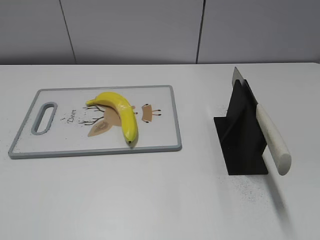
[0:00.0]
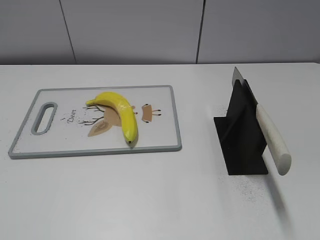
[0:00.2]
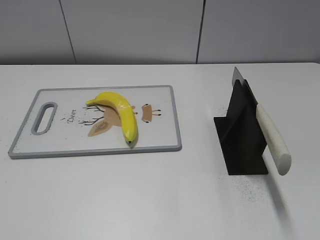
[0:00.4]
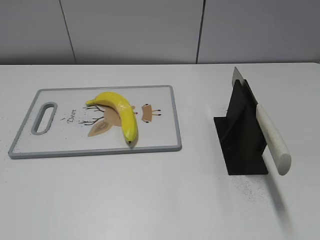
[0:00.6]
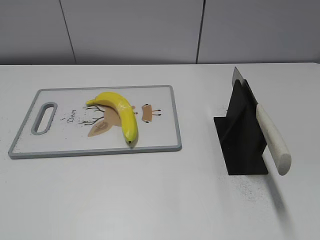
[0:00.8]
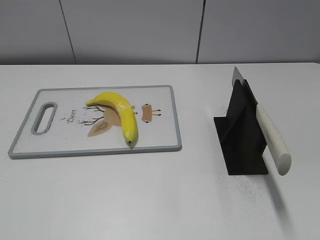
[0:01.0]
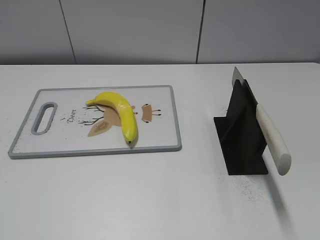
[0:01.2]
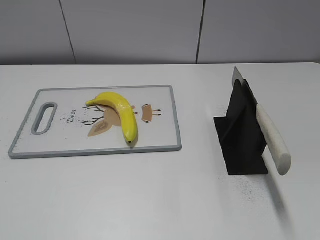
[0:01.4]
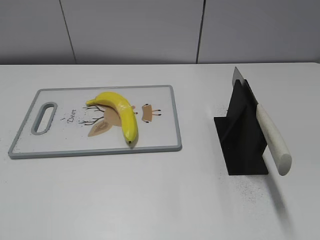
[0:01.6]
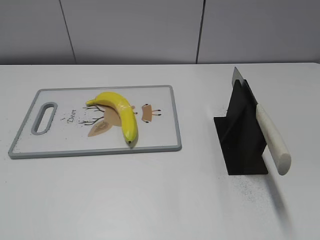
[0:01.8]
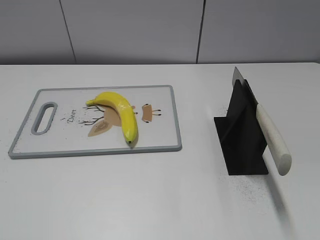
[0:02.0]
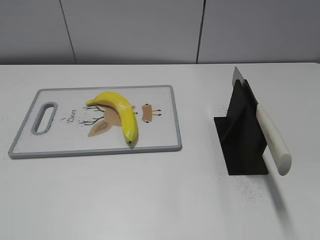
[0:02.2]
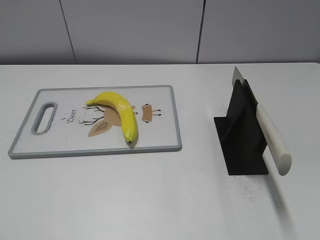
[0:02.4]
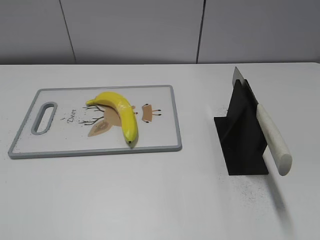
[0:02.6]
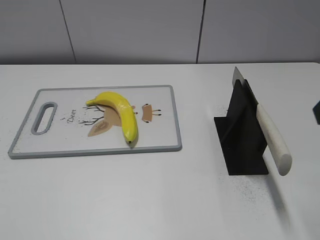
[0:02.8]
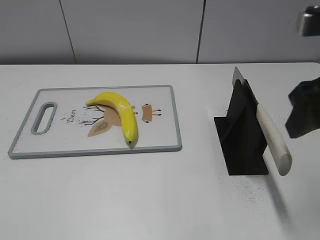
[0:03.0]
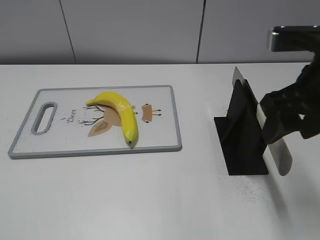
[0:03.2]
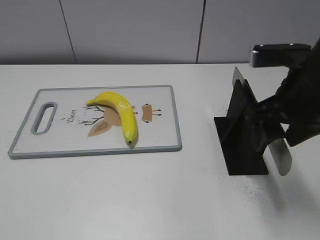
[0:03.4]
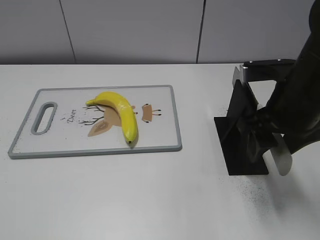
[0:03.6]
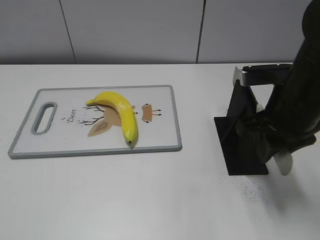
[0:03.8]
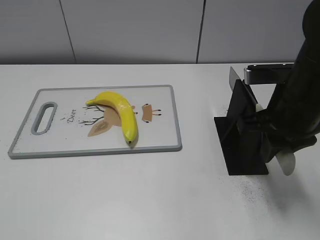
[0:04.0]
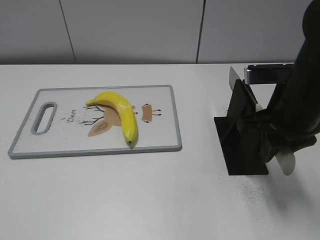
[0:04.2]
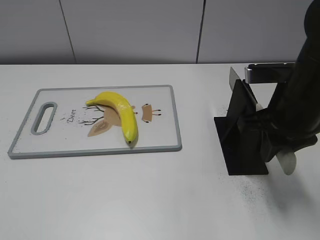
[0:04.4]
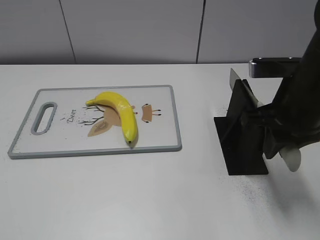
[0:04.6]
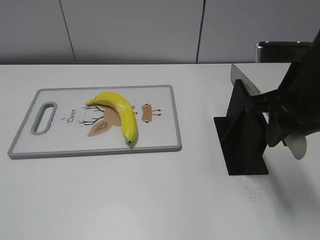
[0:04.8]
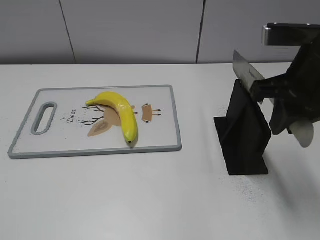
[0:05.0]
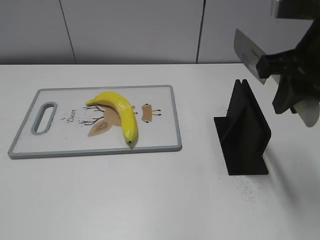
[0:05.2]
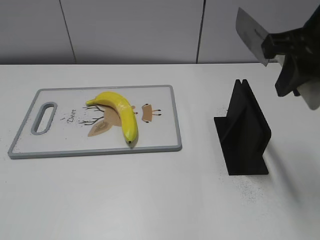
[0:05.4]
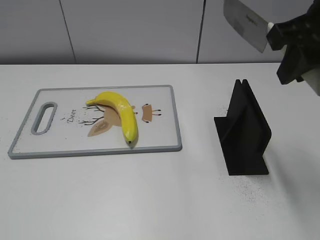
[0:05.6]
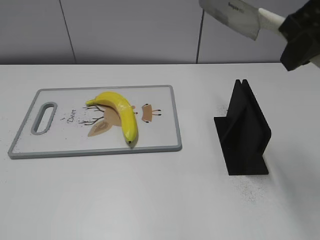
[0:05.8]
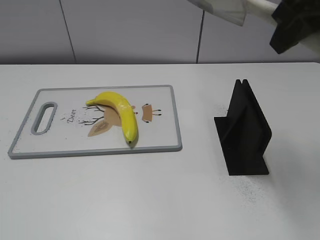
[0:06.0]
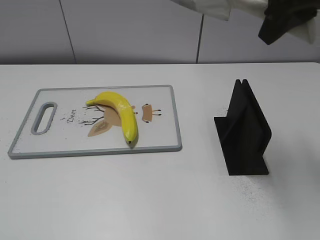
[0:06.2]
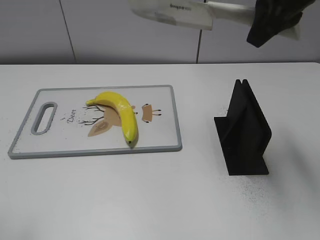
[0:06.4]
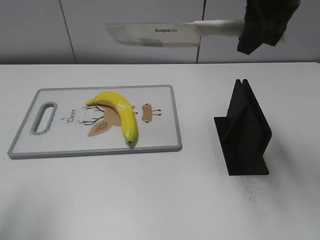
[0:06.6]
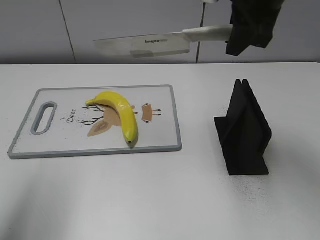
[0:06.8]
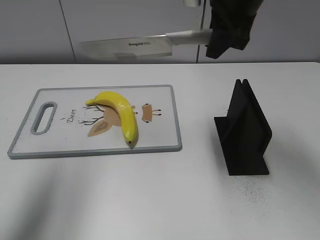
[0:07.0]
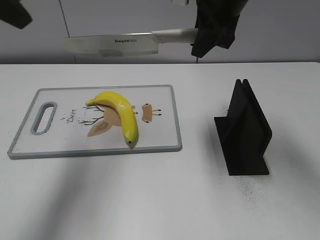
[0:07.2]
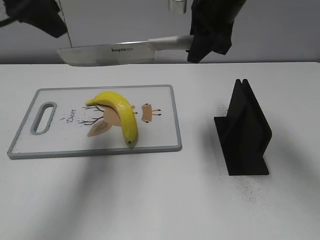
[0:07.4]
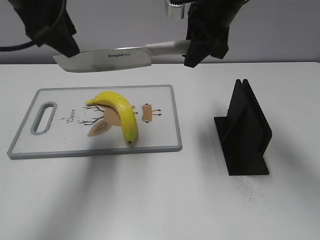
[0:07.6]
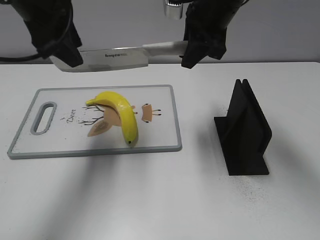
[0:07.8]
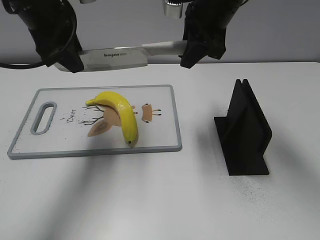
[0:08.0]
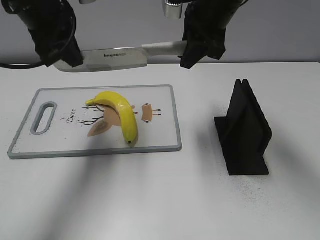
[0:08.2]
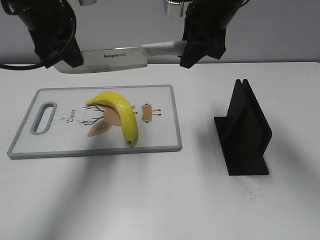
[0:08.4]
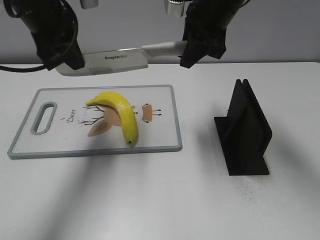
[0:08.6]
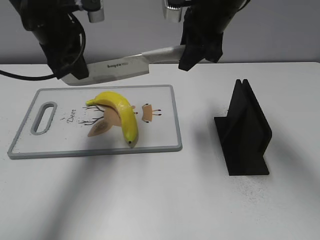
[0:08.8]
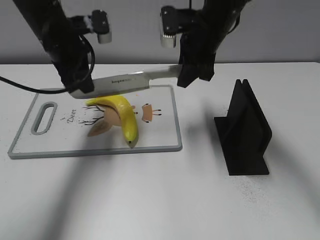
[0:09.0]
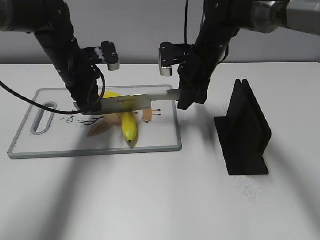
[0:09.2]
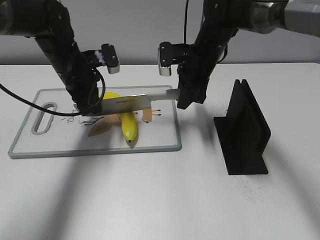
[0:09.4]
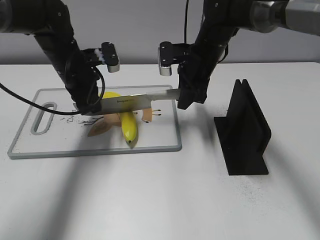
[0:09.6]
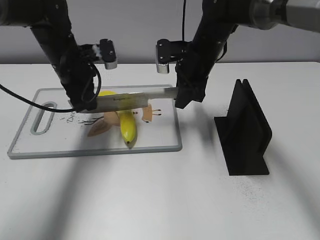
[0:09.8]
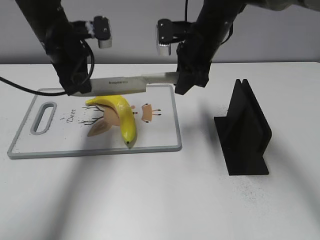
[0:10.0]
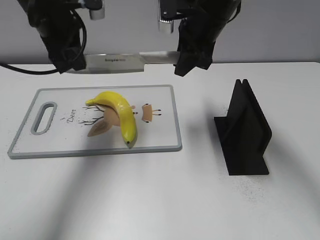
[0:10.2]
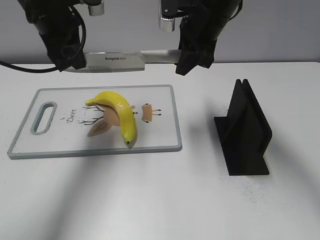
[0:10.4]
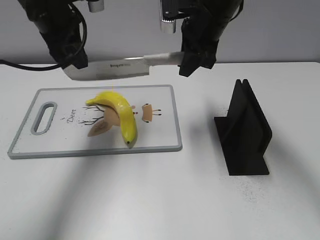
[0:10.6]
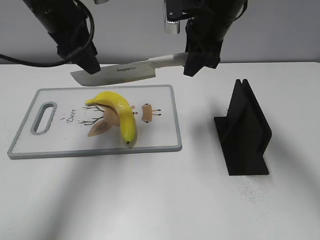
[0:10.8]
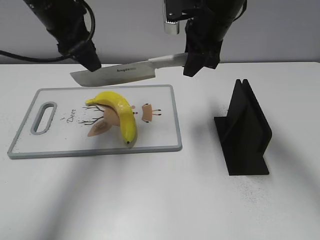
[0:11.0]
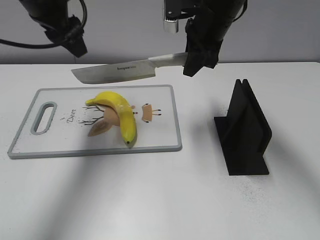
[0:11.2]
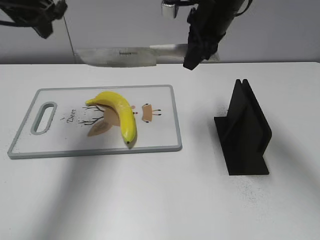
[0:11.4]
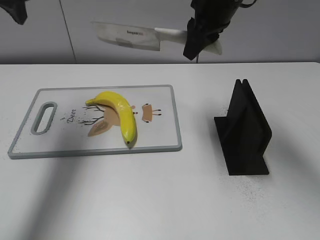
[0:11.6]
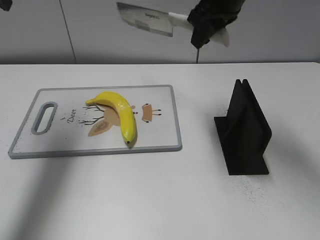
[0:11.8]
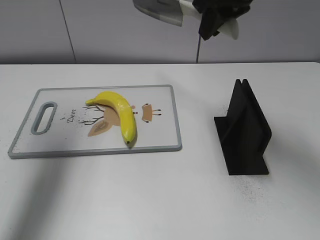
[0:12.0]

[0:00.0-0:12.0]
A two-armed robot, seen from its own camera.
Task of the whole recording: cut plastic banana.
Step, 0:00.0 to 0:05.2: Grab the knife handle with your right hand.
Step, 0:05.6 to 0:10.6: Lift the knife with your right hand.
0:01.6 to 0:03.0: The right gripper goes roughly 25 cm forward and to the left.
0:03.0 to 0:04.4: The right gripper shifts approximately 10 cm downward and forward, and closes up.
0:04.4 to 0:06.0: The right gripper moves upward, approximately 15 cm.
0:06.0 to 0:07.6: The left gripper shifts approximately 30 cm forward; the right gripper goes about 15 cm forward, downward and to the left.
0:07.6 to 0:09.0: The left gripper shifts some 10 cm downward and forward, and closes up; the right gripper moves downward, about 5 cm.
0:09.0 to 0:10.4: The left gripper travels downward and back again, approximately 10 cm each way. The right gripper travels downward and back again, roughly 10 cm each way.
0:10.4 to 0:12.0: The right gripper heads upward, covering approximately 10 cm; the left gripper moves upward and to the left, roughly 15 cm, and opens up.

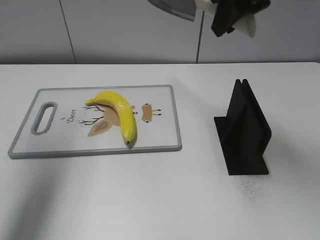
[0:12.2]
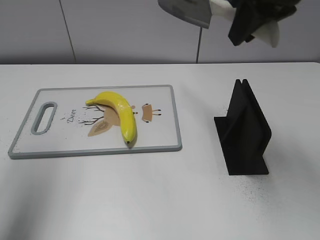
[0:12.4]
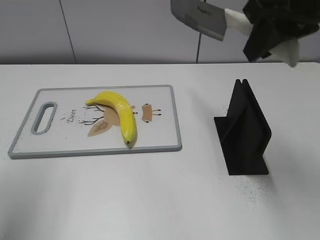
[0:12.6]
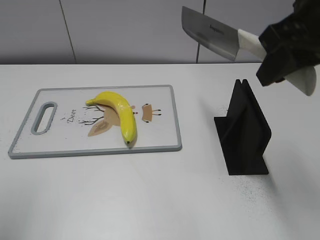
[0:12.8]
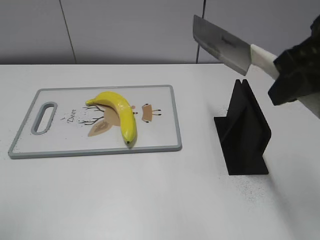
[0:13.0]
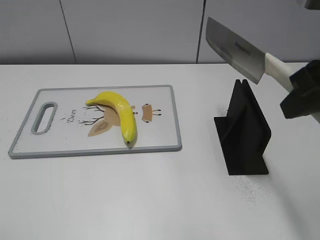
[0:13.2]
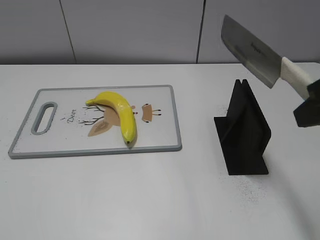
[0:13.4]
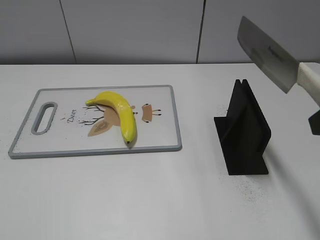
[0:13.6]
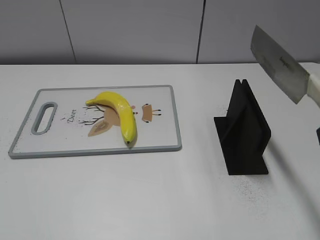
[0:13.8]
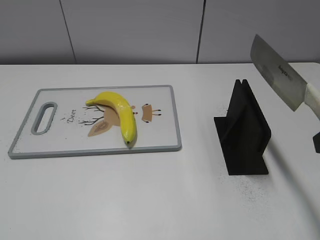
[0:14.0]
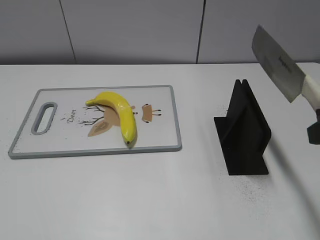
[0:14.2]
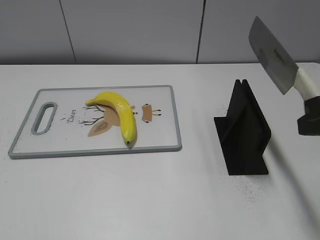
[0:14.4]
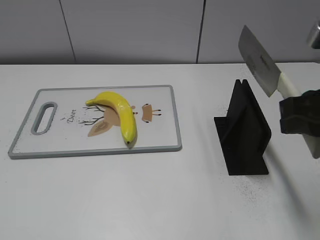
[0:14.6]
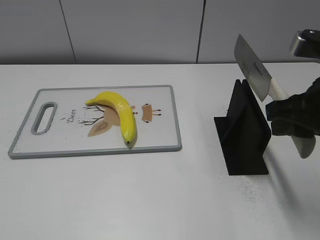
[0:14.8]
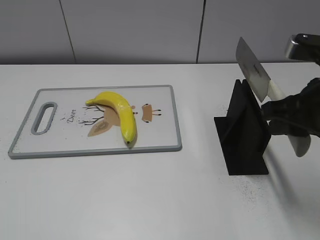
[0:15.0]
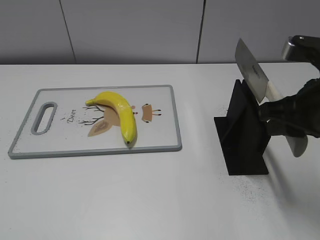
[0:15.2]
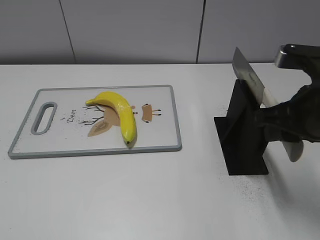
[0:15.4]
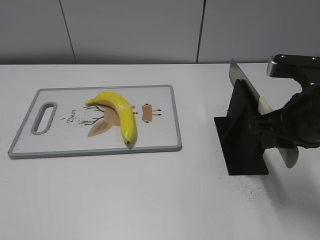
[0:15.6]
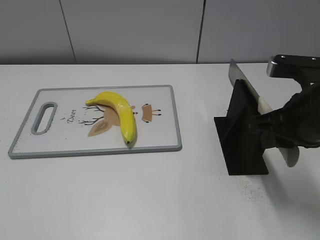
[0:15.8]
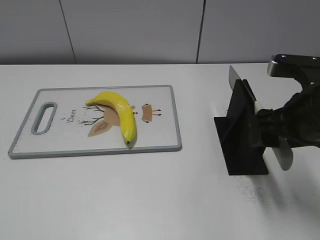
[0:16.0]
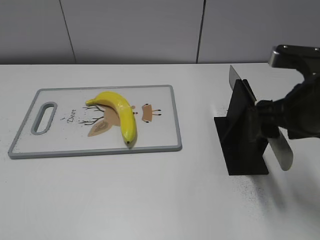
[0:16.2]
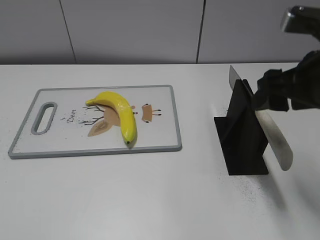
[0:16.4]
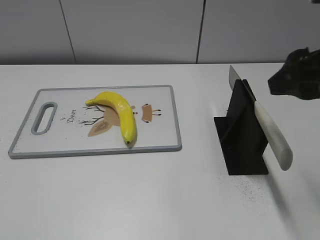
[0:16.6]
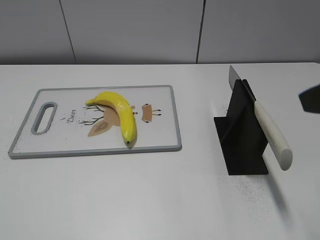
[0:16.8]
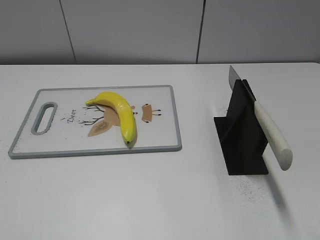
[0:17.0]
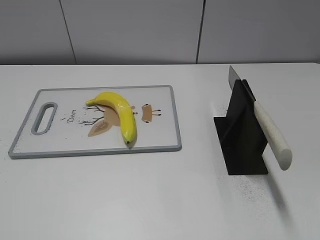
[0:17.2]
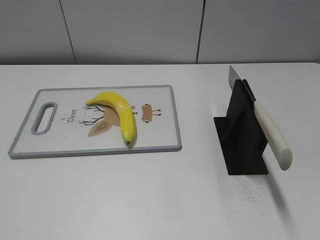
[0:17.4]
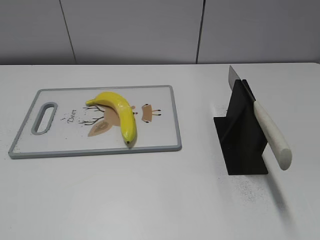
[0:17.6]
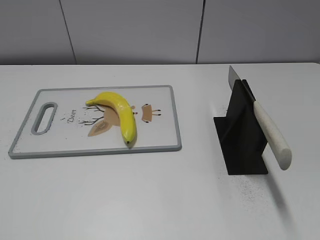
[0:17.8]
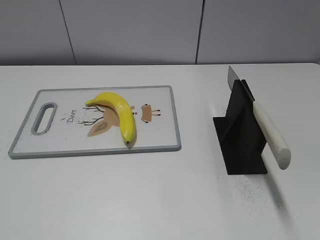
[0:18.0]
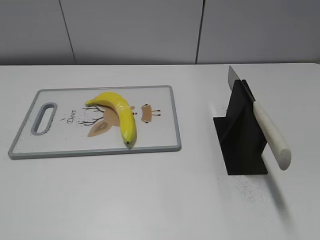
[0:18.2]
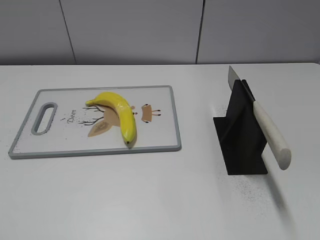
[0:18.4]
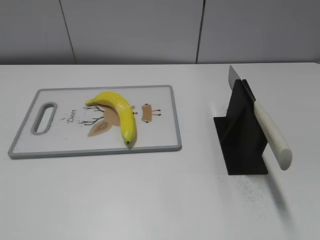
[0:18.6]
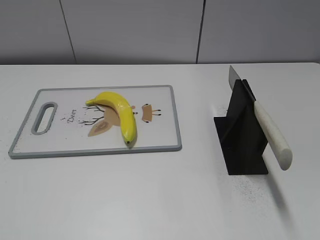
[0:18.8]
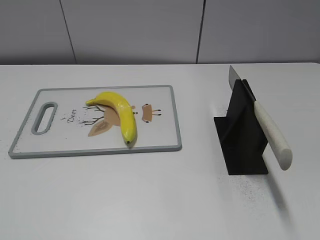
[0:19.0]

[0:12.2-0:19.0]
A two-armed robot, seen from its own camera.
Task of the whole recording: cut plastic banana.
Step, 0:12.2 to 0:12.6: Lift the knife with your right hand.
Step, 0:13.0 to 0:19.0: Place the knife on the storage rack with your right hand.
0:12.2 to 0:13.6: The left gripper moves backward, roughly 30 cm; the right gripper shifts about 20 cm backward and to the right.
0:13.6 to 0:15.0: The right gripper moves downward and forward, about 10 cm.
0:15.0 to 0:16.2: The right gripper opens its fingers.
0:16.2 to 0:17.6: The right gripper moves backward, about 25 cm.
